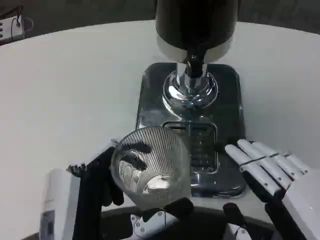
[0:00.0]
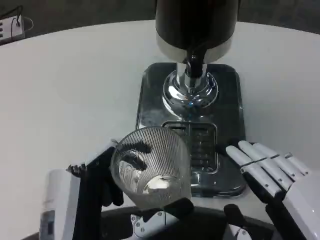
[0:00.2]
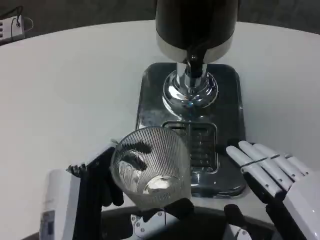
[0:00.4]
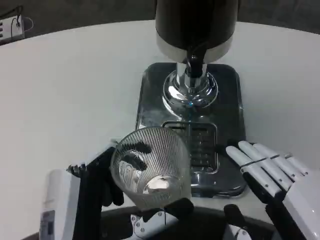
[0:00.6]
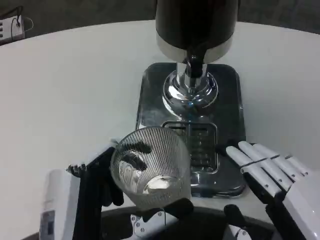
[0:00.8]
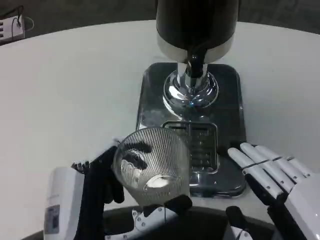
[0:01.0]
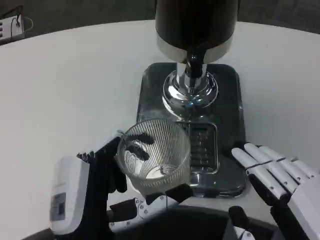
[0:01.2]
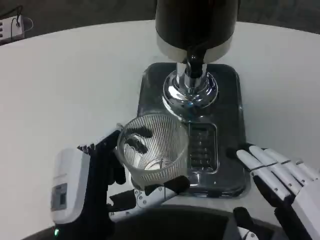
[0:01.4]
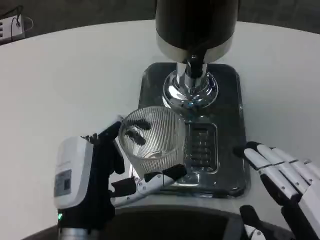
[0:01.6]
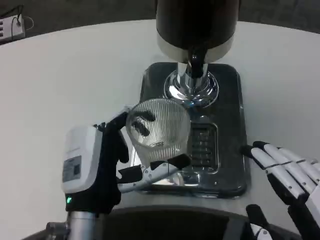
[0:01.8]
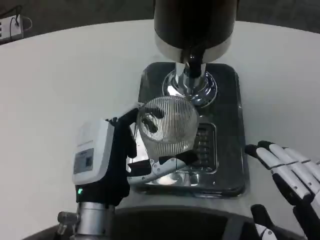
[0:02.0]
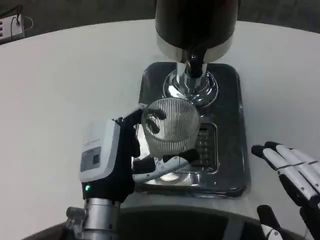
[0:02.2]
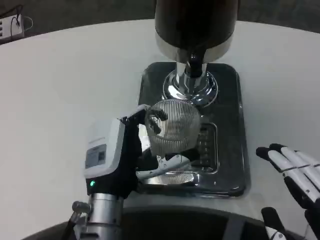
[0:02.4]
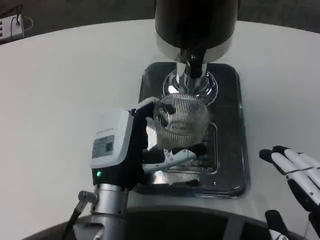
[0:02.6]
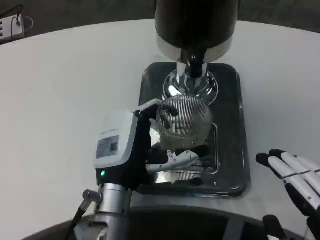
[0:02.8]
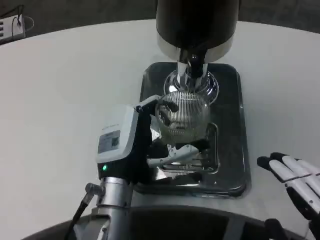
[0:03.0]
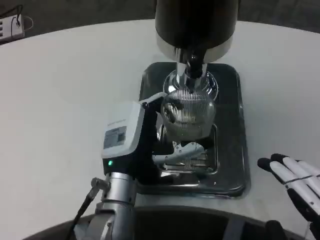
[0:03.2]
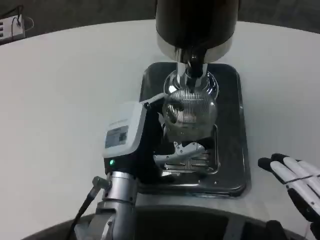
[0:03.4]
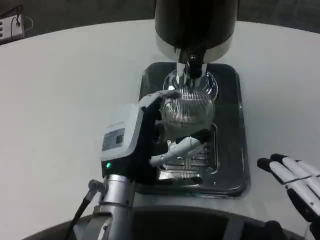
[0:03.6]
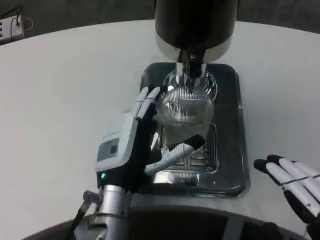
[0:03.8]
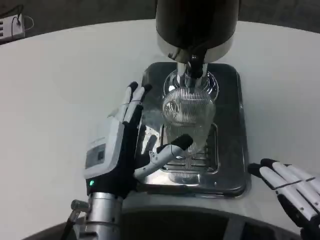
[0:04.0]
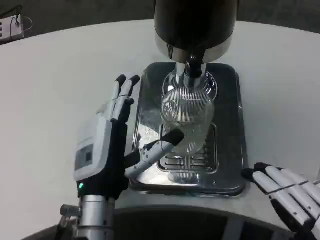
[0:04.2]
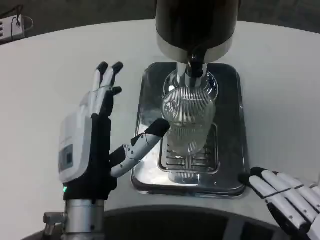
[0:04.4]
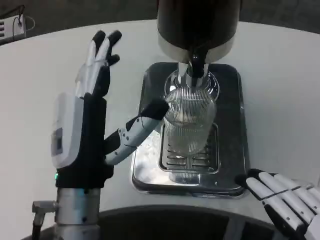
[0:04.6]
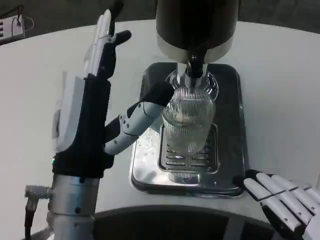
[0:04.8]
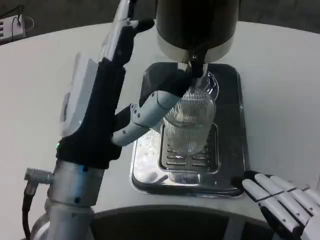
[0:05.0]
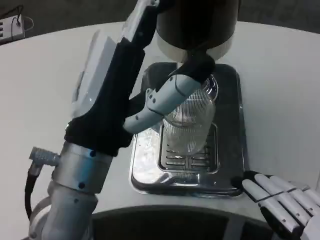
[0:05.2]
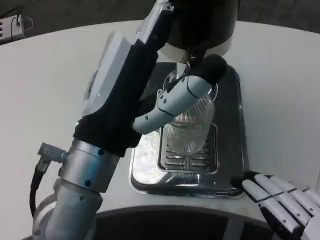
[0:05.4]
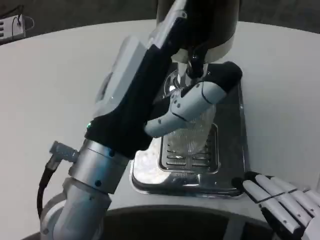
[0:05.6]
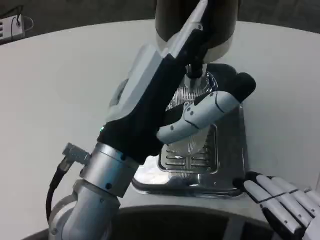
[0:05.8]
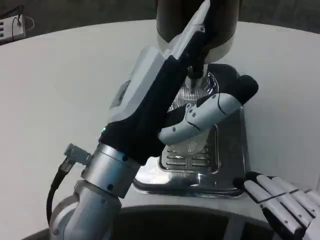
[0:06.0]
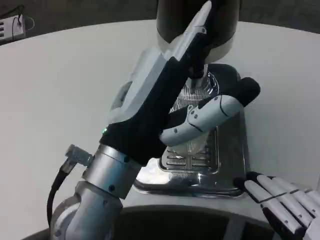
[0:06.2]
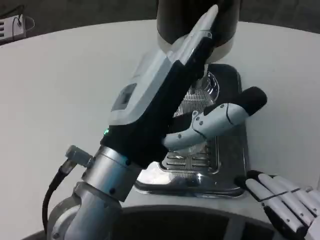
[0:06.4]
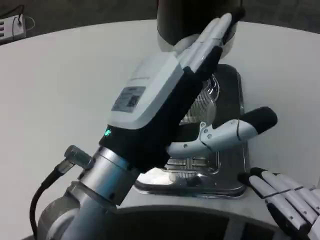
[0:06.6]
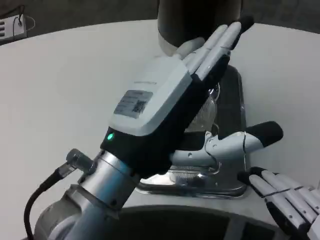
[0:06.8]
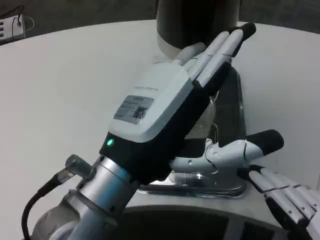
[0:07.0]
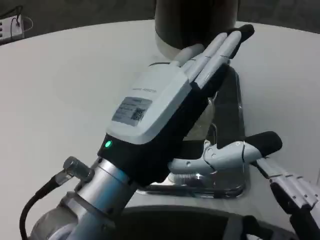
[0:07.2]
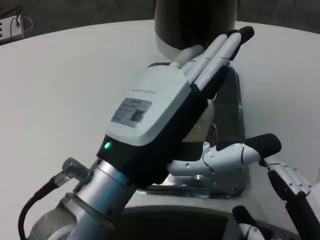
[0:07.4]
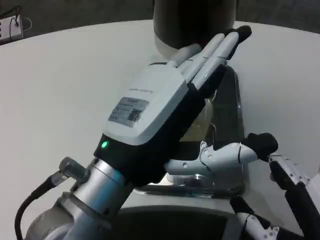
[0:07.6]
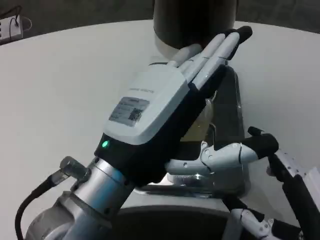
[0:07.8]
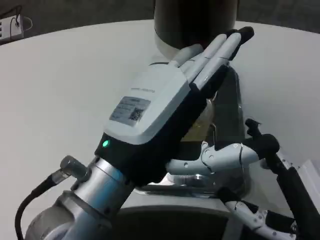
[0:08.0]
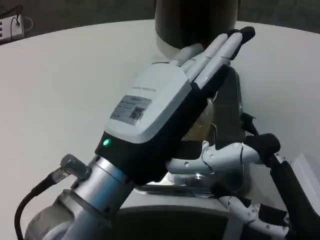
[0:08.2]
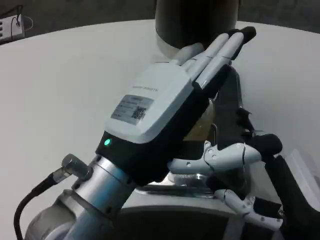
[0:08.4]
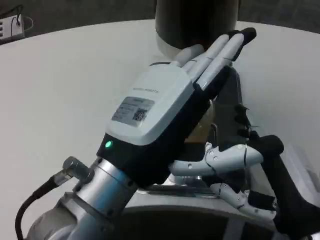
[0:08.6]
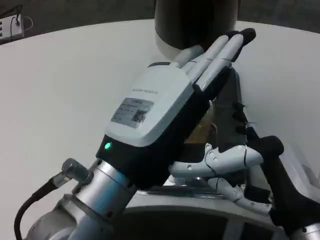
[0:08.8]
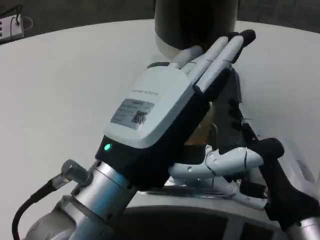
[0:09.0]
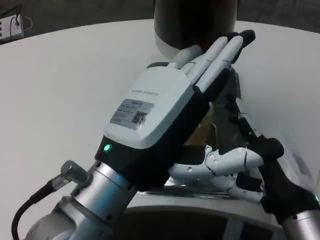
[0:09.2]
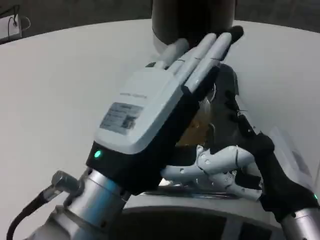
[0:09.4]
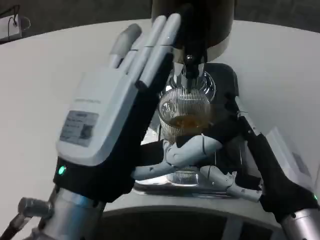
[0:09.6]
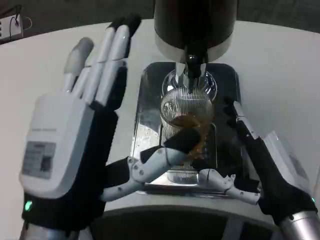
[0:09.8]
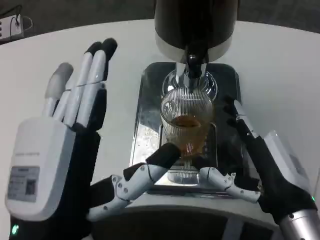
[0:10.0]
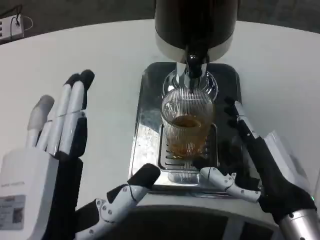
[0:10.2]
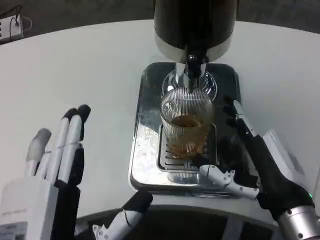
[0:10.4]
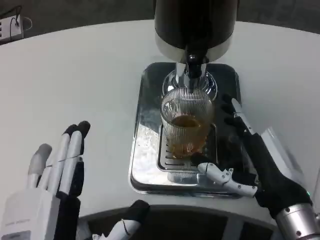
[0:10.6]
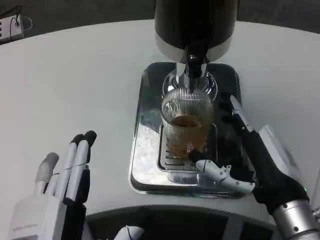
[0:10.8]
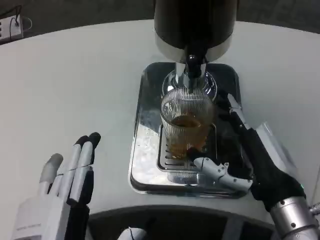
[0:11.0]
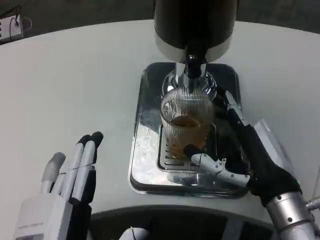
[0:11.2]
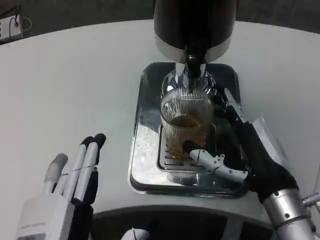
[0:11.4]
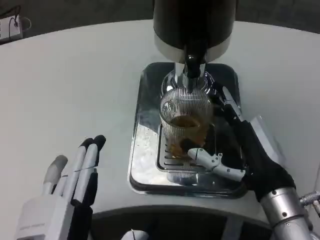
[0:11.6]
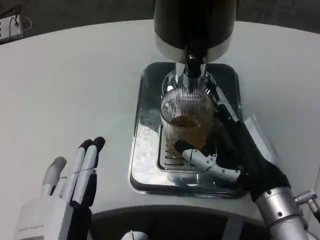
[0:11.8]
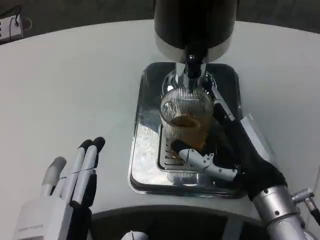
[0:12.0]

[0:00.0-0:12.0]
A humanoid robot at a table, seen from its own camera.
Task of the whole recording: Grasp the cup under the faucet to collect the drink, then remove the cup.
0:00.0 to 0:01.6: The left hand goes roughly 5 cm forward.
0:01.6 to 0:03.0: The left hand is displaced forward by about 10 cm.
0:03.0 to 0:04.4: The left hand shifts approximately 5 cm backward.
0:04.4 to 0:06.0: The left hand is displaced upward by approximately 10 cm.
0:06.0 to 0:07.6: The right hand moves some 5 cm.
0:07.6 to 0:09.0: The right hand heads forward, covering some 10 cm.
0:09.0 to 0:10.4: The left hand goes approximately 15 cm downward and backward.
0:10.4 to 0:12.0: The hands move only a little.

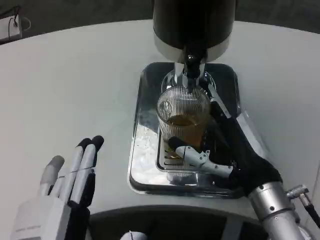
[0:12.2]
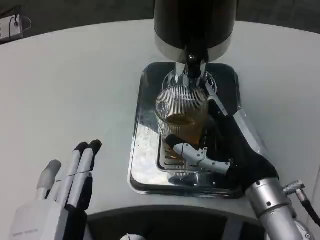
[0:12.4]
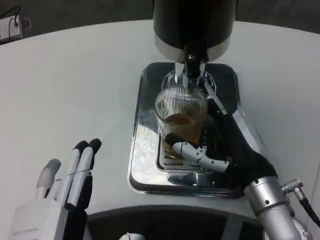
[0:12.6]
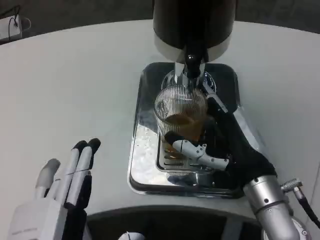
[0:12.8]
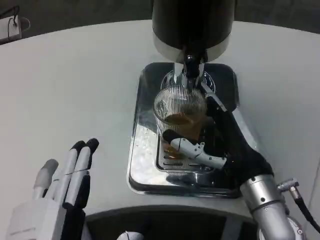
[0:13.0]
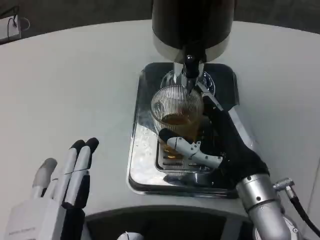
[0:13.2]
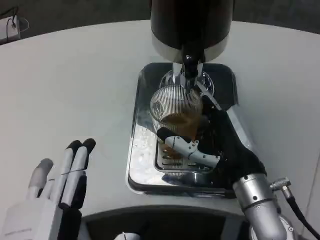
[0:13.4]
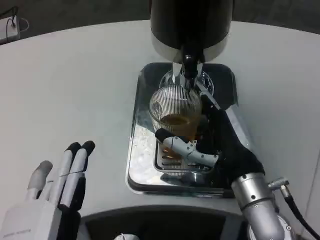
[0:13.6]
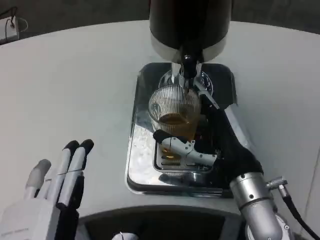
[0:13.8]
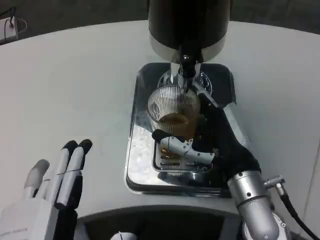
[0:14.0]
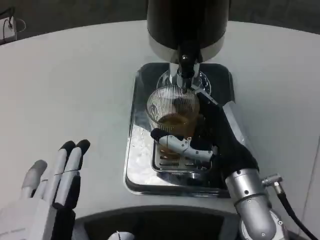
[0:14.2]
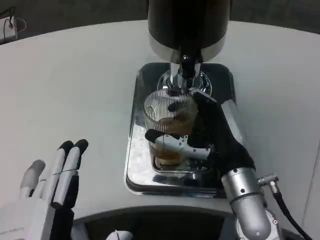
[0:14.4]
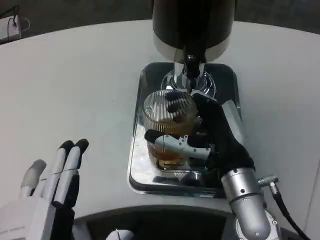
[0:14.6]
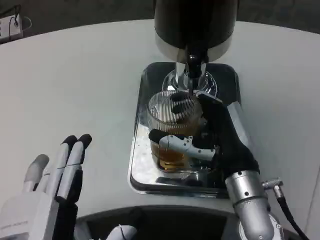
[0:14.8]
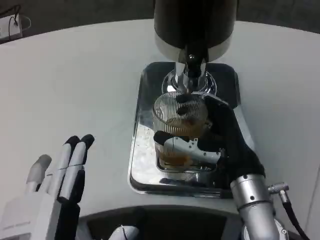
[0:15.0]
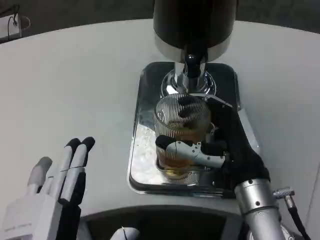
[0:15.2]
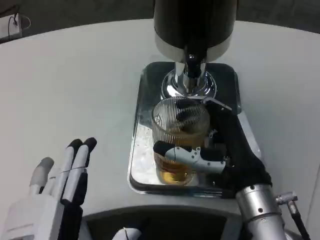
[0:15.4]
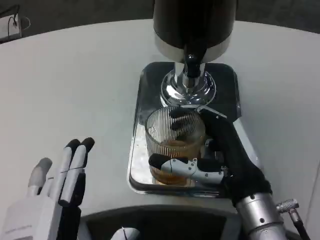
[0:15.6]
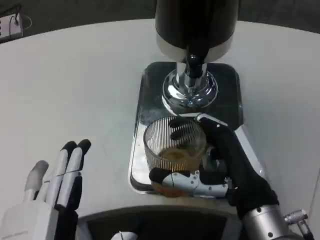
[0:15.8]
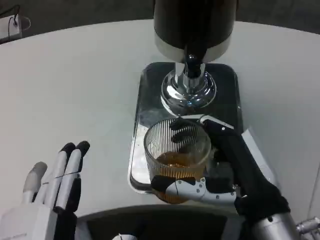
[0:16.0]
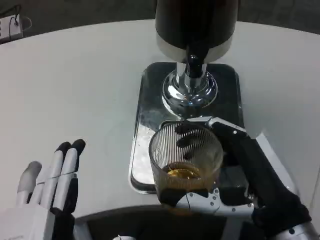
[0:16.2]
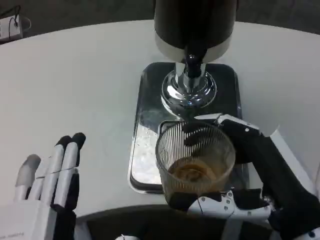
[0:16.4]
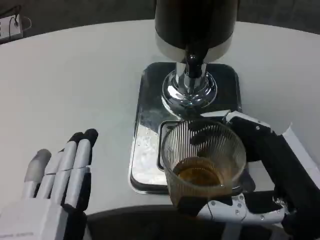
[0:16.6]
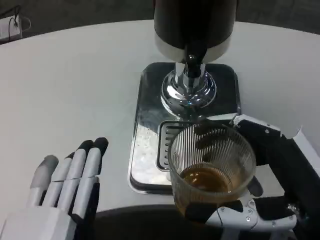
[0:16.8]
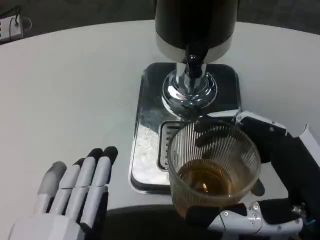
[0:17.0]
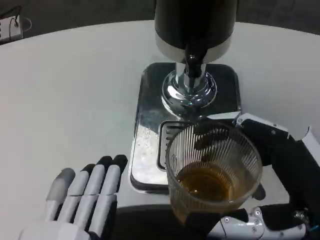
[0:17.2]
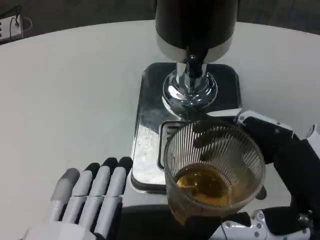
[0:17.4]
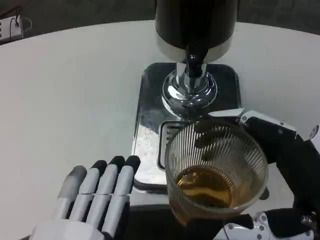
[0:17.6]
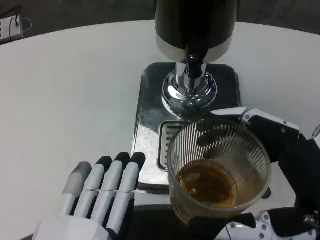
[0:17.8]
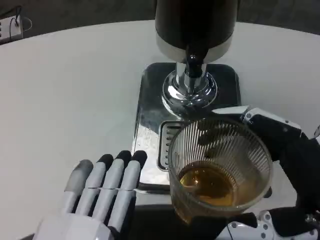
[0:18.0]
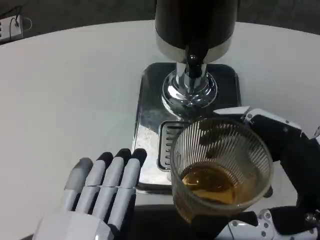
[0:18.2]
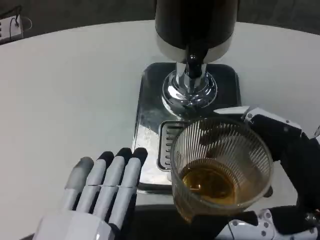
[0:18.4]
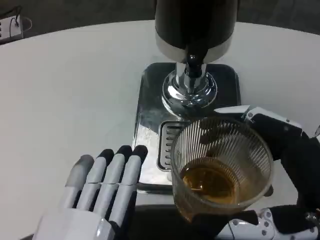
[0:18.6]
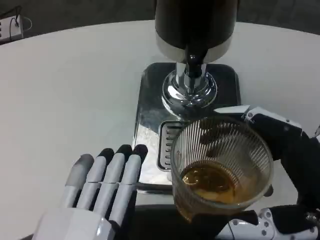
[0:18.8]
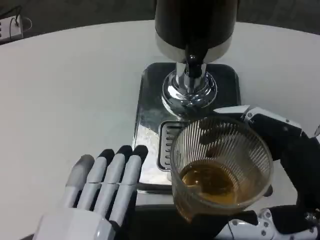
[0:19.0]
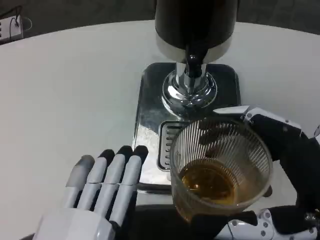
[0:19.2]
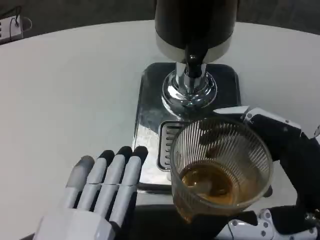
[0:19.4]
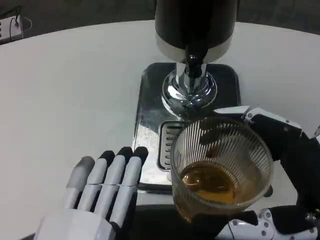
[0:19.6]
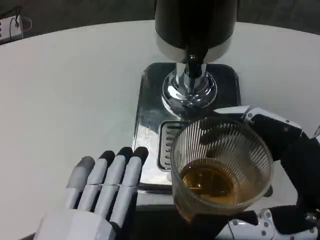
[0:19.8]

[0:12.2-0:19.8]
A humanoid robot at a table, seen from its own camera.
Task of the whole recording: Grasp the cup under the faucet to collect the drink, then remove the cup.
0:13.8 to 0:15.2: The hands stay close to where they were, moving slightly.
0:15.2 to 0:16.8: The right hand heads backward and to the right, covering some 15 cm.
0:18.2 to 0:19.8: Both hands stay about where they are.

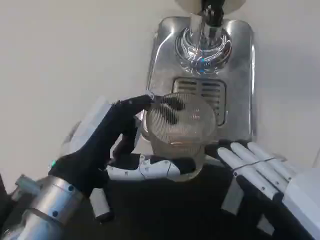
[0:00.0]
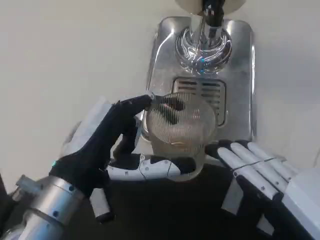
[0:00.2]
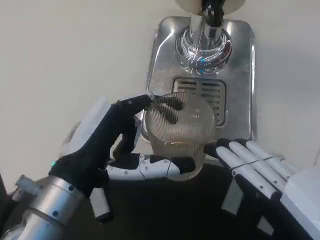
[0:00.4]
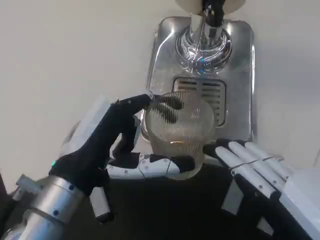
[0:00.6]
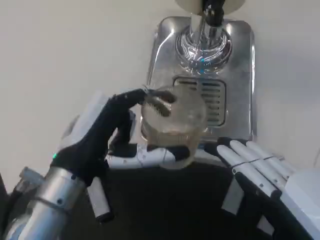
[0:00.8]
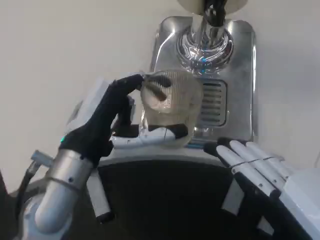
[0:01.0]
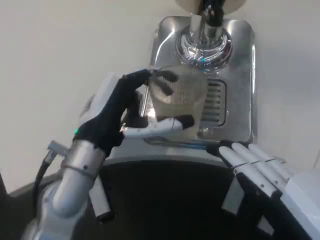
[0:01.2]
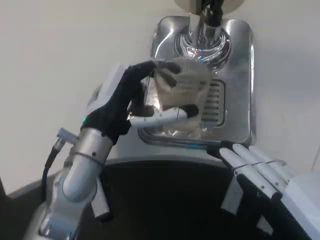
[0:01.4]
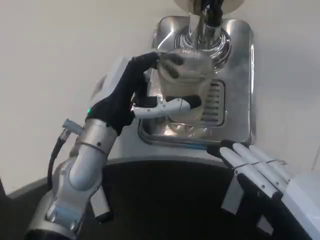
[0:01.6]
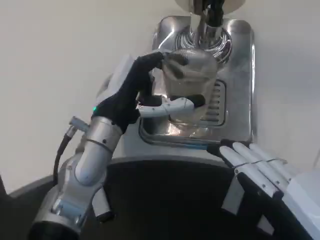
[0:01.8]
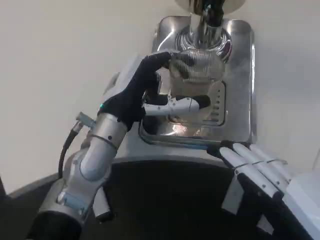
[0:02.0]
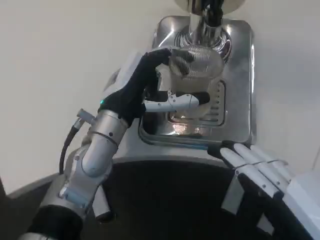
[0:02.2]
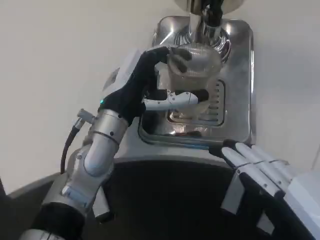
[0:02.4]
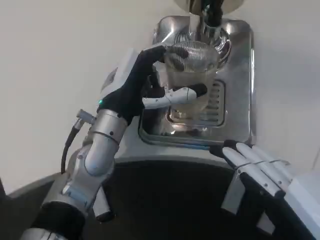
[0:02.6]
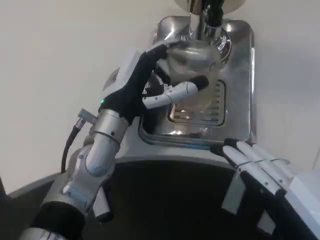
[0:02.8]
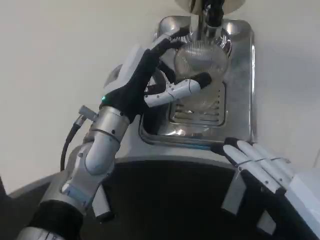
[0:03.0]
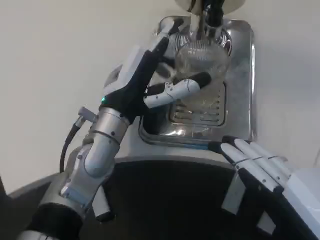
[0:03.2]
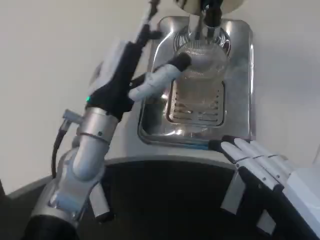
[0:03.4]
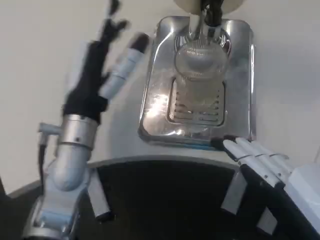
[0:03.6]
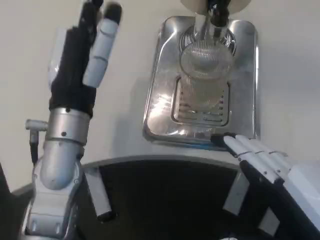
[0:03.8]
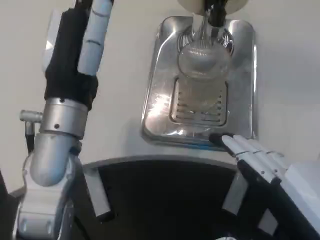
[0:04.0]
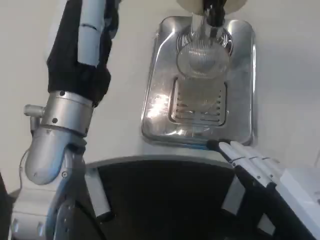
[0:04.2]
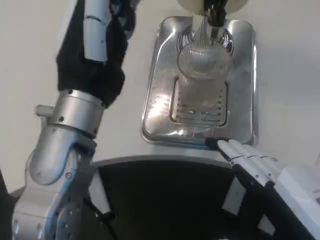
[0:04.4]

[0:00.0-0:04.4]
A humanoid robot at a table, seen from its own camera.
Task of the whole recording: Grasp the cup under the faucet to collect the drink, then remove the cup.
0:00.0 to 0:01.4: The left hand travels forward by roughly 10 cm.
0:01.4 to 0:03.0: There are only small adjustments of the hands.
0:03.0 to 0:04.4: The left hand goes some 10 cm backward and upward.
